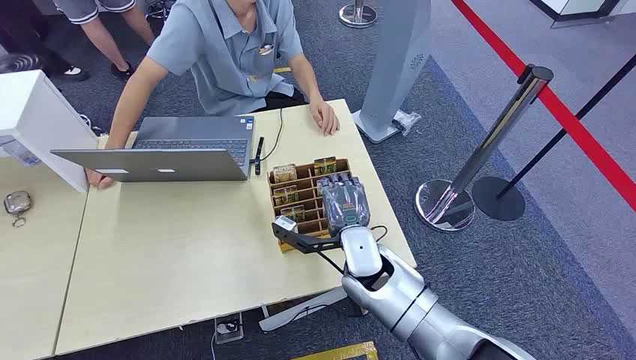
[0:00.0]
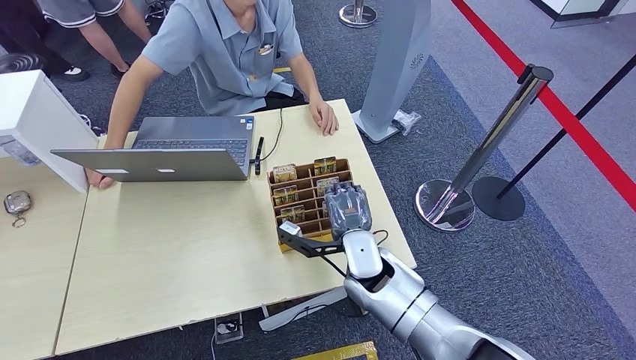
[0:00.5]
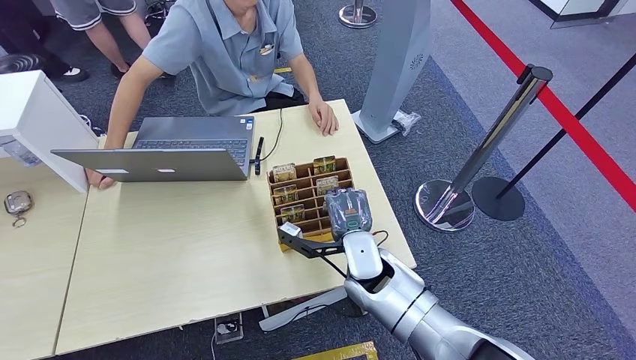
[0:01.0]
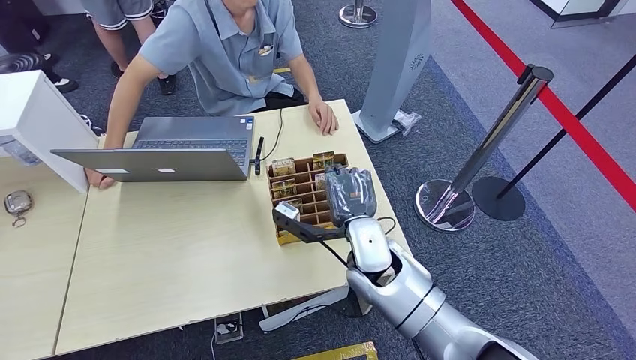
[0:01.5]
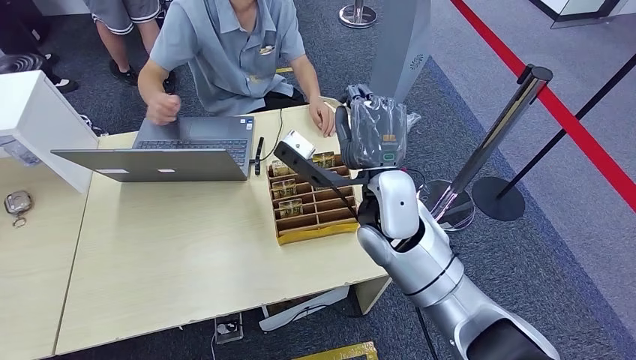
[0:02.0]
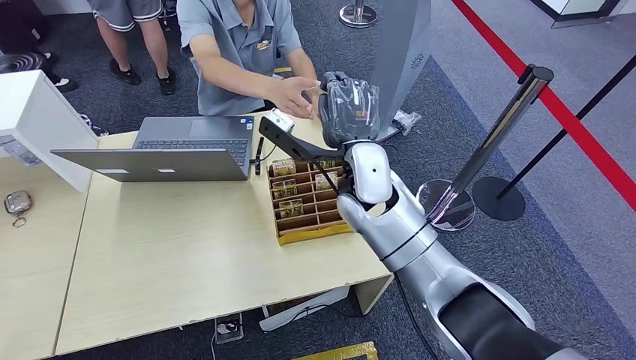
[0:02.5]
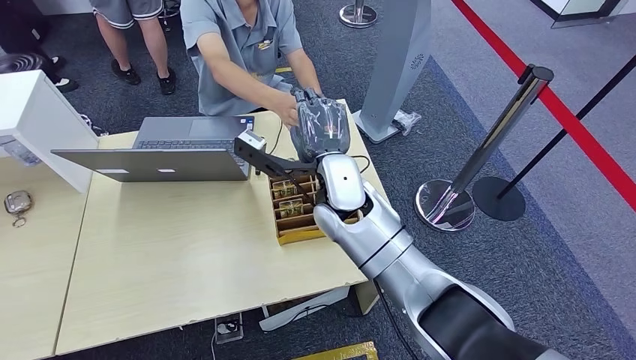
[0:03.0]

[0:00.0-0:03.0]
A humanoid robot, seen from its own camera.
Step, 0:00.0 to 0:01.0: Pick up the room card from the card holder.
Step, 0:02.0 to 0:03.0: Hand the room card to the target.
0:01.5 to 0:03.0: The right hand shifts roughly 15 cm upward and forward.
